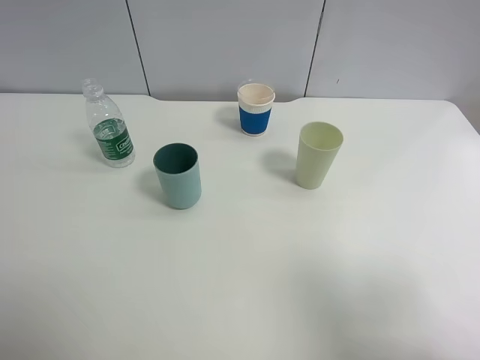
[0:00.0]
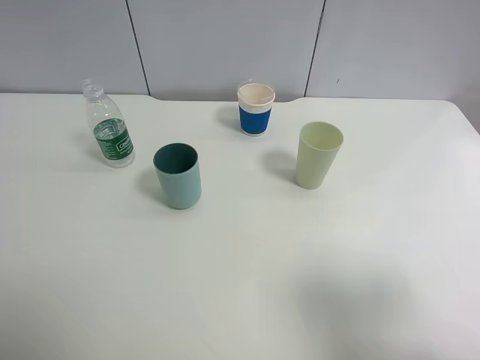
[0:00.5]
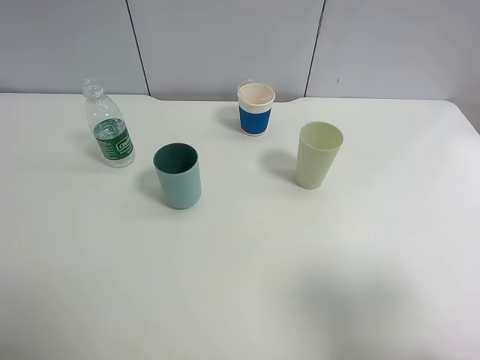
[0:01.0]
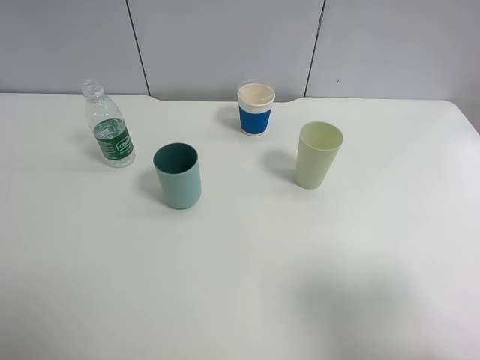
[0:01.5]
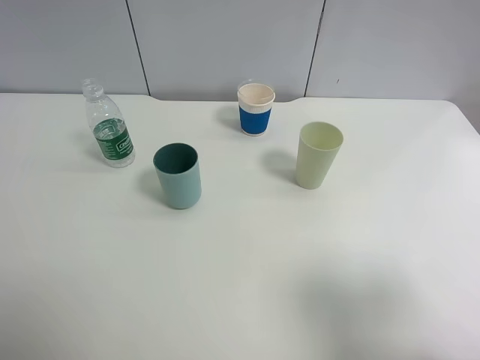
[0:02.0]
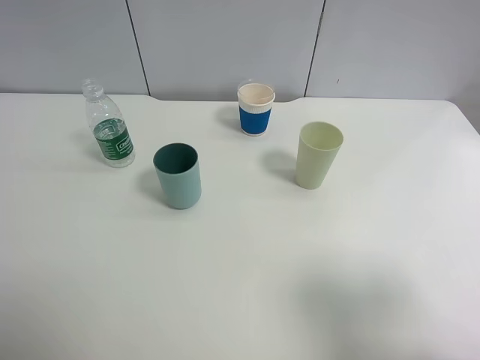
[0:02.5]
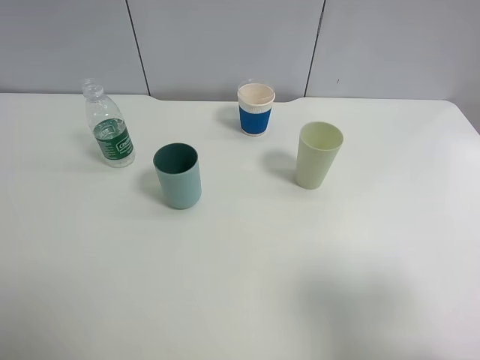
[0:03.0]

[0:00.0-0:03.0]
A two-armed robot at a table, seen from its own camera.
Task of the whole recording: use a clamp to hold the bottle of the drink, pour the beverage into a random cup, then clamp the cup containing the drink and pour the drink into another random cup.
0:01.5 to 0:03.0: Both grippers stay about where they are.
